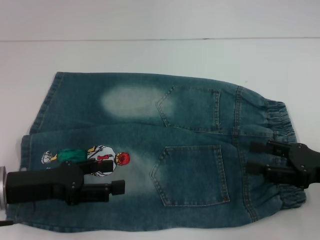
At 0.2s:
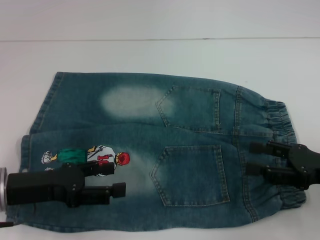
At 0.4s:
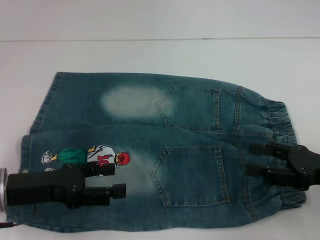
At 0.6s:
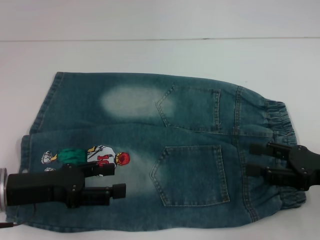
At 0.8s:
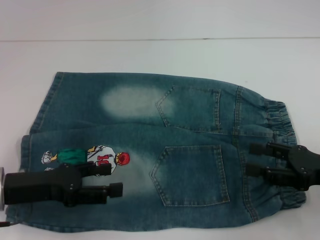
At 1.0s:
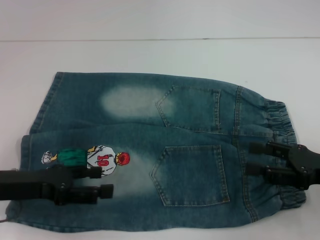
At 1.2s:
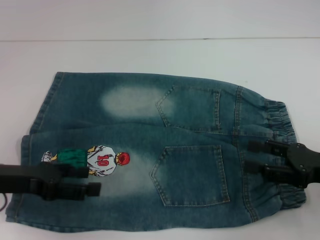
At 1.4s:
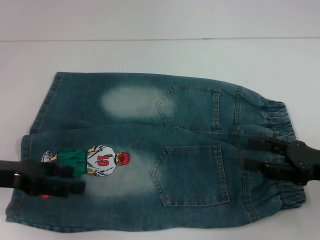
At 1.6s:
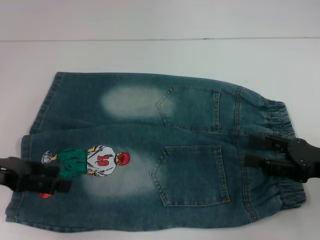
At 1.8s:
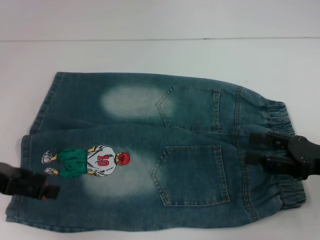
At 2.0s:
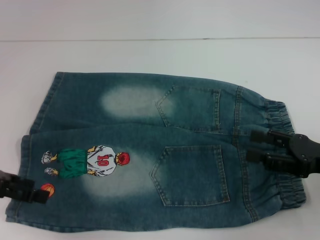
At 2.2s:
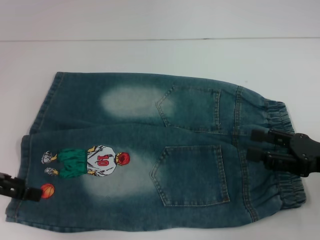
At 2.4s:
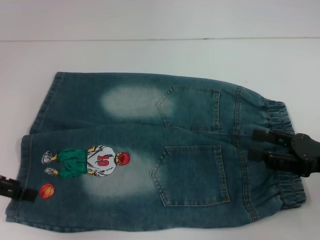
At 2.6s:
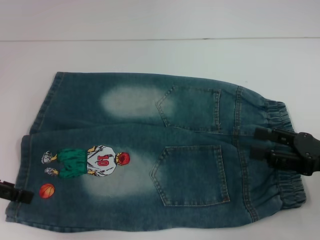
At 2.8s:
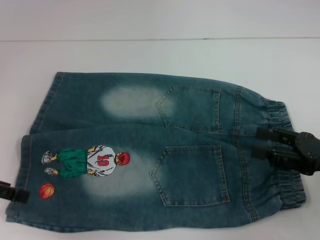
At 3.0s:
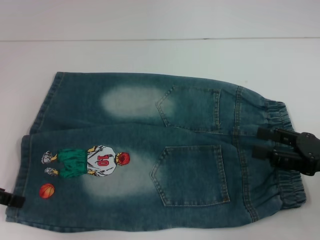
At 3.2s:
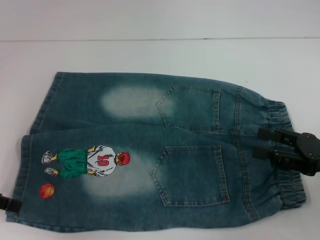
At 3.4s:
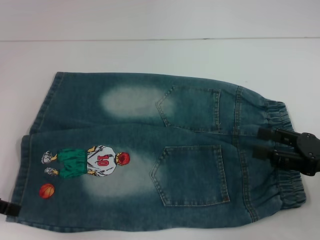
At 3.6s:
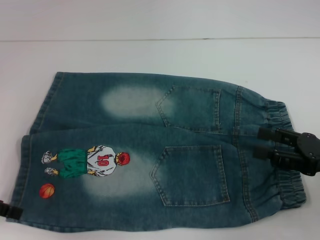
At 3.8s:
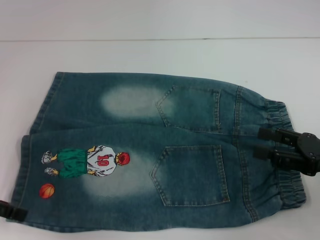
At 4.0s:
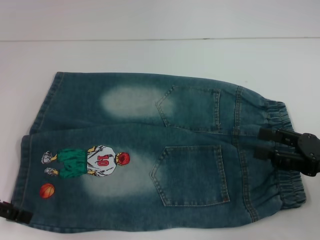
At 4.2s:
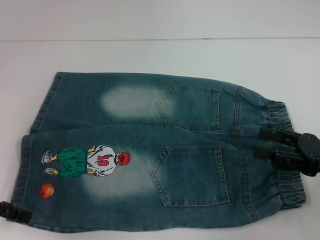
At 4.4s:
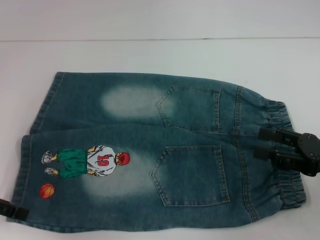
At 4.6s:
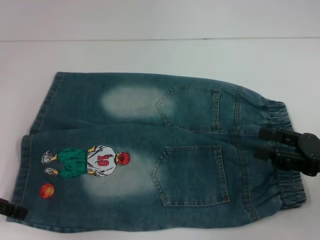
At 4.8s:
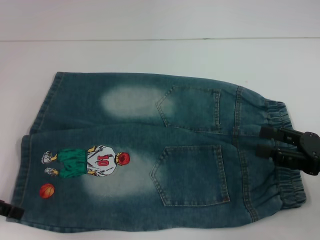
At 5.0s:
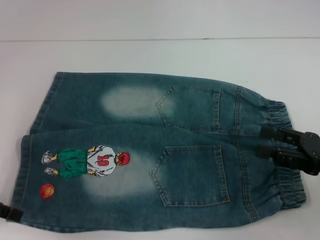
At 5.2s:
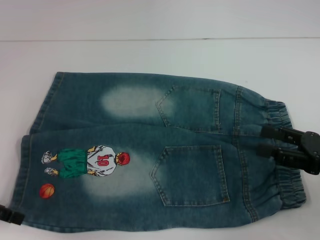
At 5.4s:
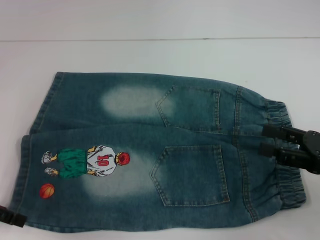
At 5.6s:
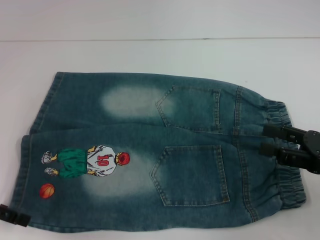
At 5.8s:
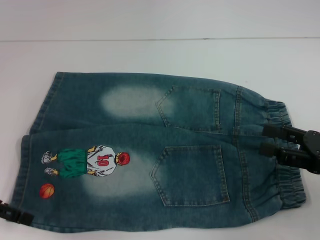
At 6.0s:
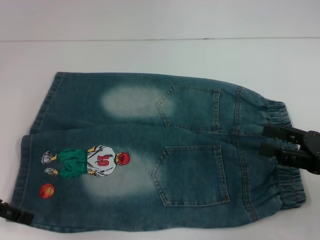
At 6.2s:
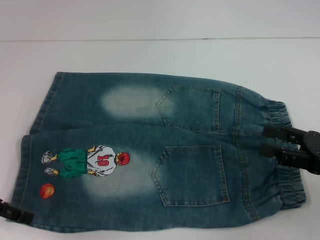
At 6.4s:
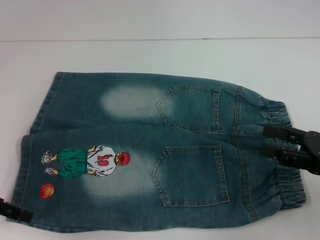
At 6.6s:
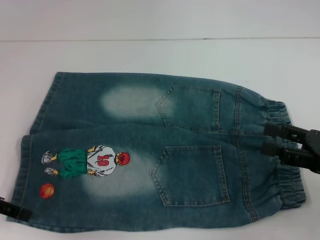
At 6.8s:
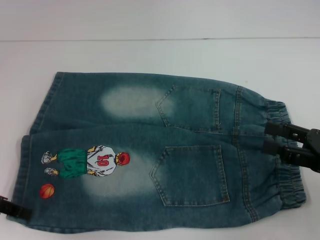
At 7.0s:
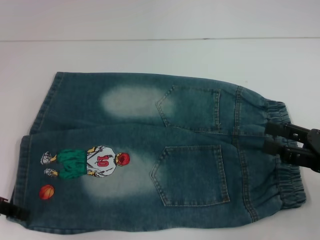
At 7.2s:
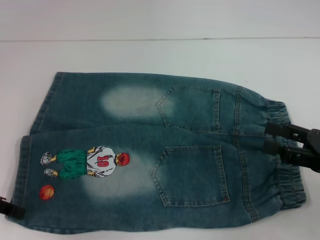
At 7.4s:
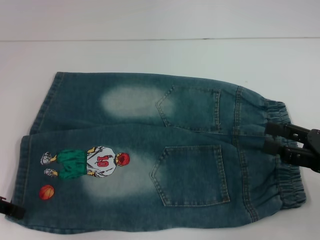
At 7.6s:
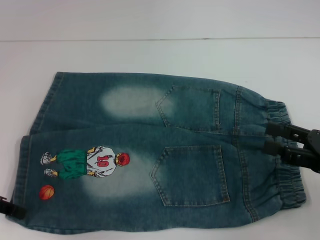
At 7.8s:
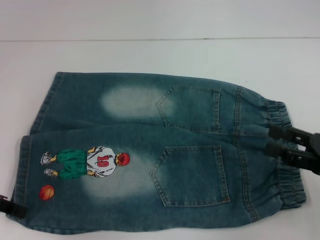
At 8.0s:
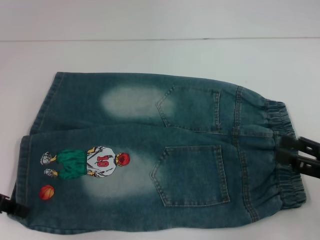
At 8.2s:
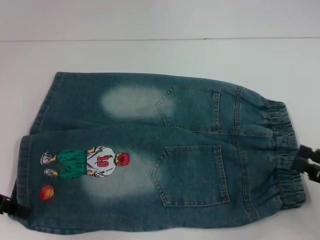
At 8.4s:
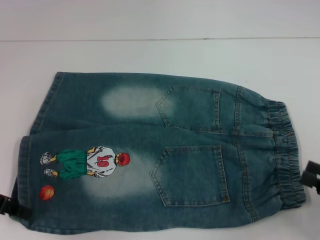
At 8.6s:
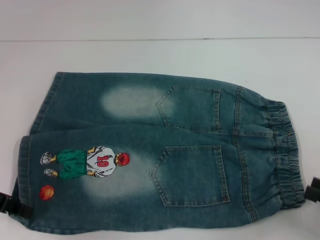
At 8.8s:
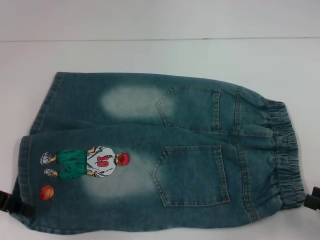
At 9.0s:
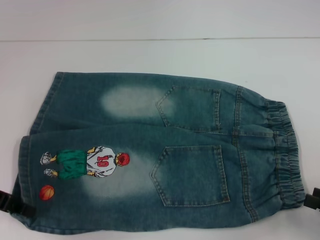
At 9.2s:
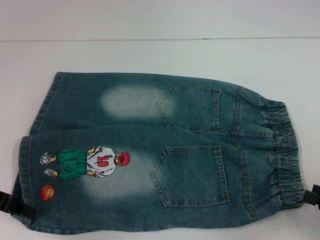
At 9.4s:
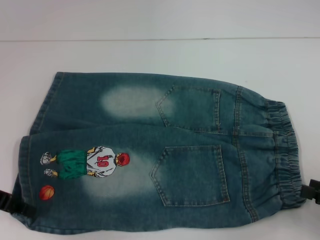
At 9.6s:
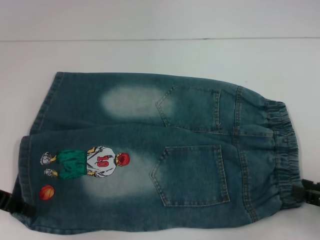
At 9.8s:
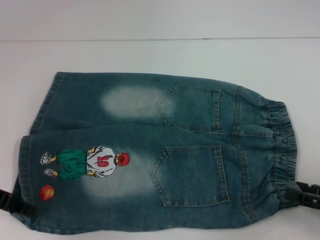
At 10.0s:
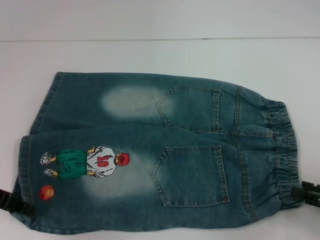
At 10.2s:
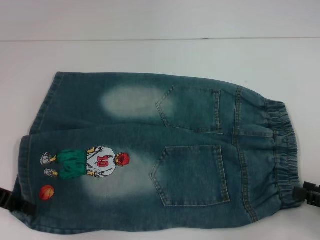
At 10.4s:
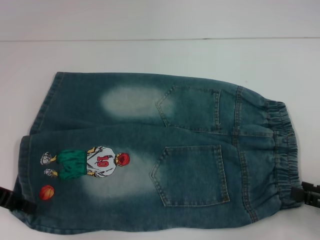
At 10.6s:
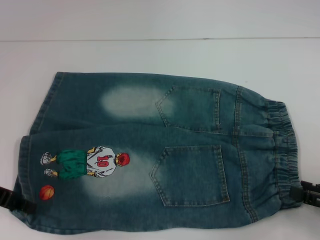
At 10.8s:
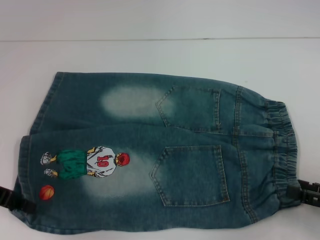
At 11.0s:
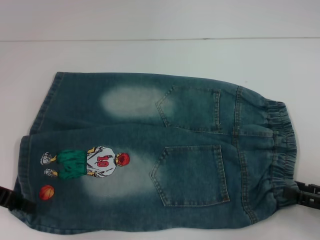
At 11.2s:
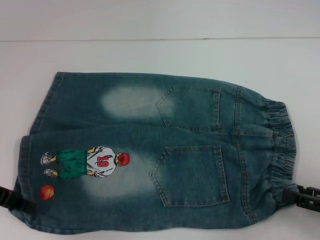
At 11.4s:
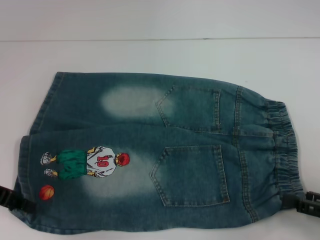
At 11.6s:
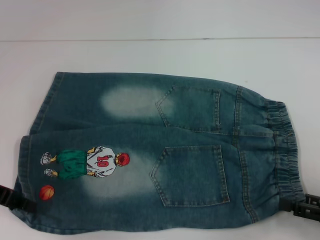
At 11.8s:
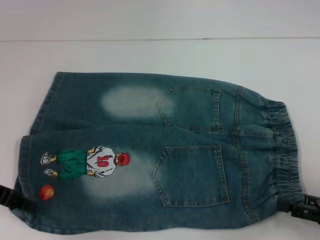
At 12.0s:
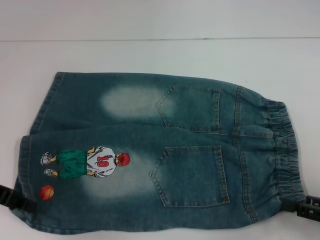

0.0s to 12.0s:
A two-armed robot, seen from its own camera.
Step, 0.0s to 8.4s: Hold the lower left waistband with your left hand.
0.0s to 1.6s: The left gripper goes about 5 cm to the left.
4.4s to 6.0s: Neither gripper changes place.
6.0s to 7.6s: The left gripper closes.
7.6s to 9.0s: The right gripper travels backward and to the right by about 10 cm.
9.0s to 12.0s: The grippers make only small movements.

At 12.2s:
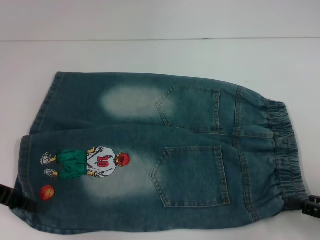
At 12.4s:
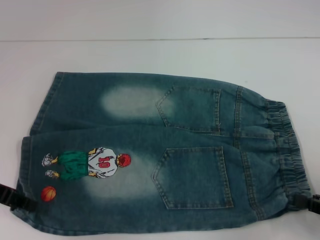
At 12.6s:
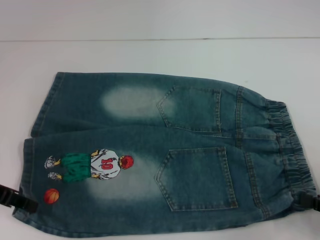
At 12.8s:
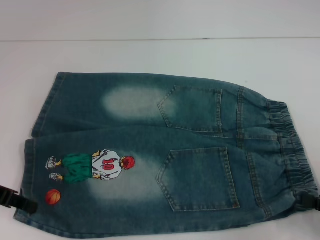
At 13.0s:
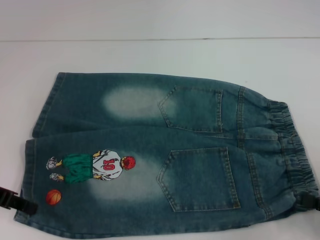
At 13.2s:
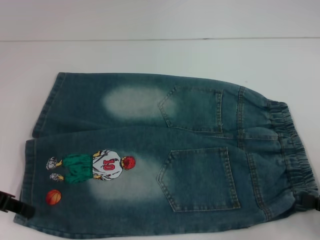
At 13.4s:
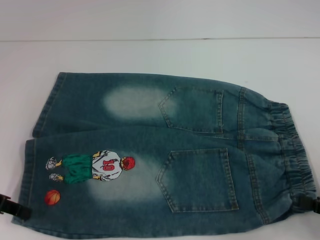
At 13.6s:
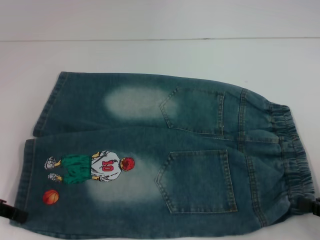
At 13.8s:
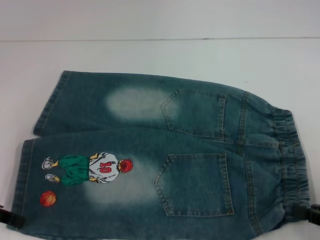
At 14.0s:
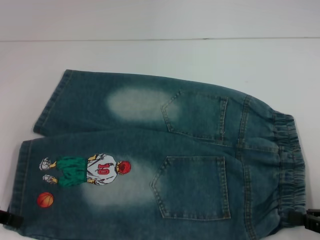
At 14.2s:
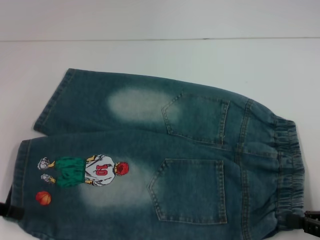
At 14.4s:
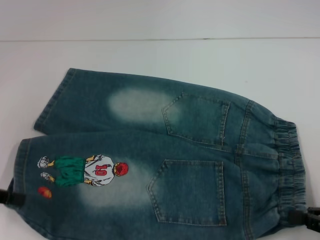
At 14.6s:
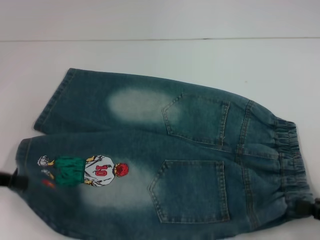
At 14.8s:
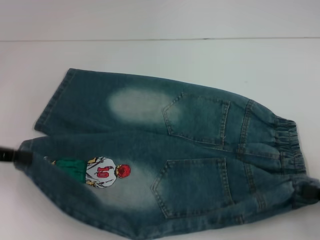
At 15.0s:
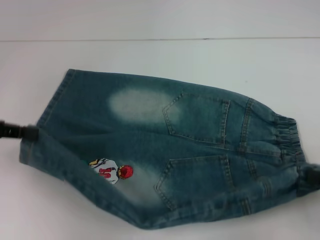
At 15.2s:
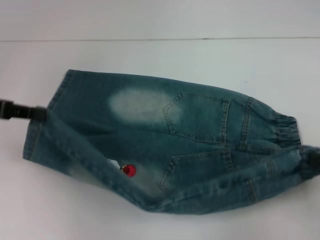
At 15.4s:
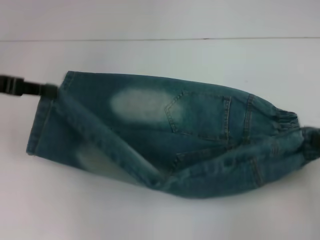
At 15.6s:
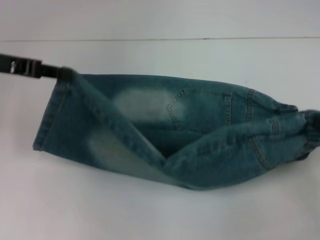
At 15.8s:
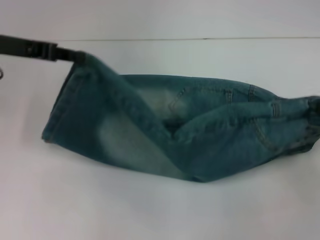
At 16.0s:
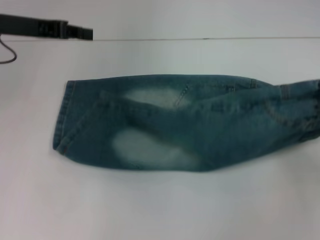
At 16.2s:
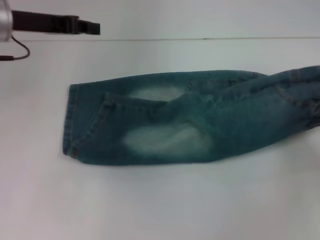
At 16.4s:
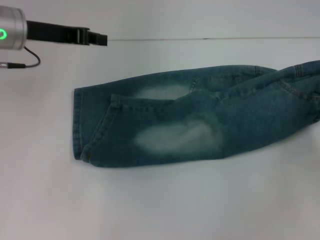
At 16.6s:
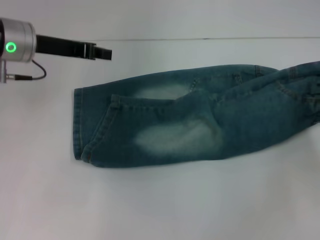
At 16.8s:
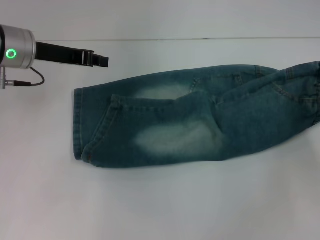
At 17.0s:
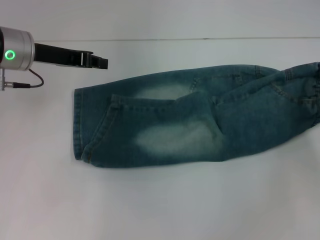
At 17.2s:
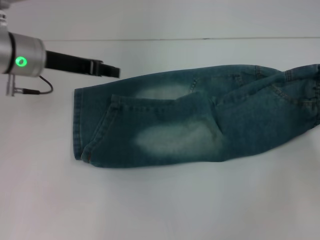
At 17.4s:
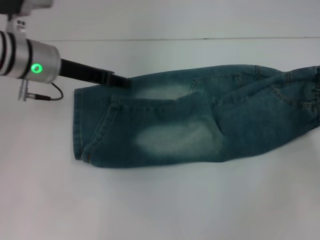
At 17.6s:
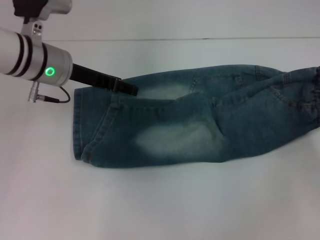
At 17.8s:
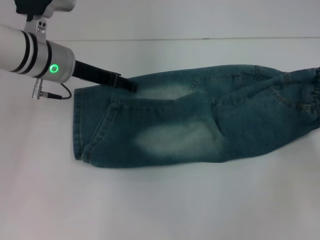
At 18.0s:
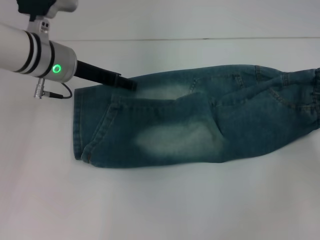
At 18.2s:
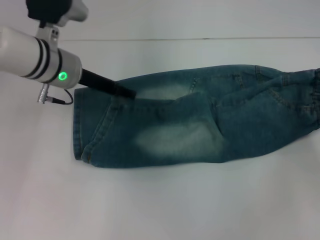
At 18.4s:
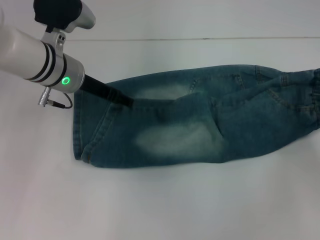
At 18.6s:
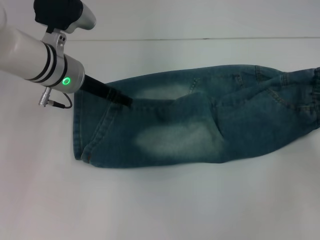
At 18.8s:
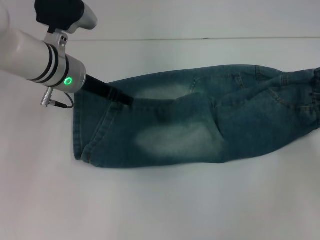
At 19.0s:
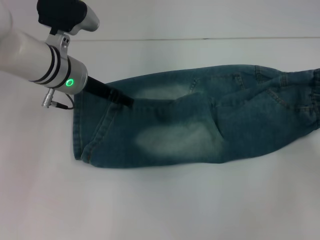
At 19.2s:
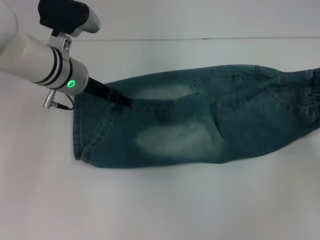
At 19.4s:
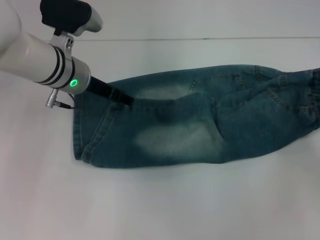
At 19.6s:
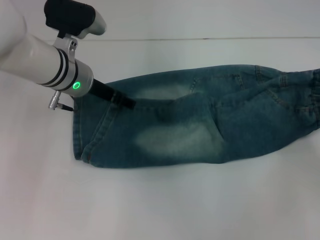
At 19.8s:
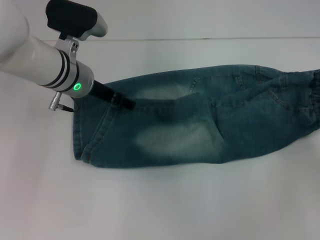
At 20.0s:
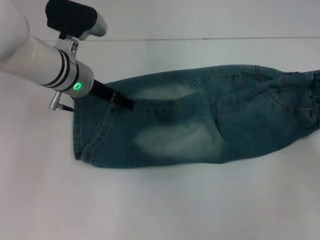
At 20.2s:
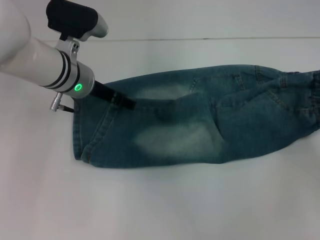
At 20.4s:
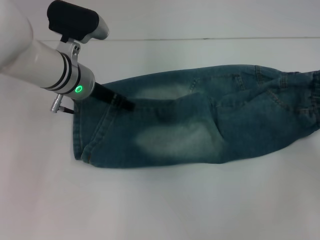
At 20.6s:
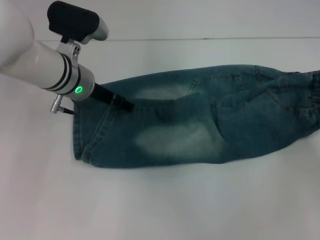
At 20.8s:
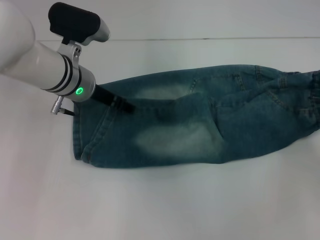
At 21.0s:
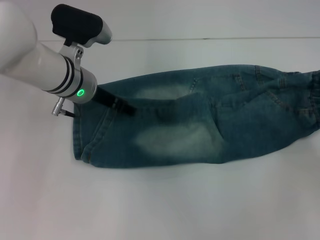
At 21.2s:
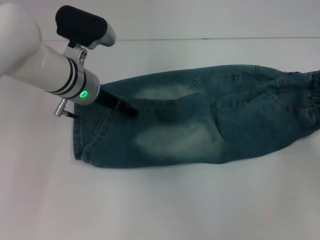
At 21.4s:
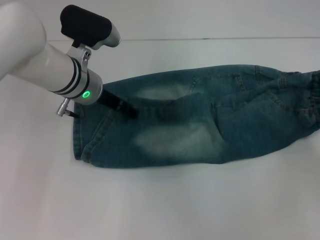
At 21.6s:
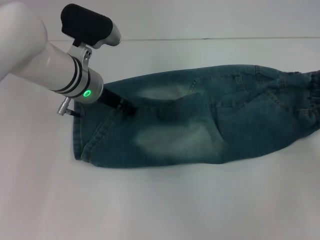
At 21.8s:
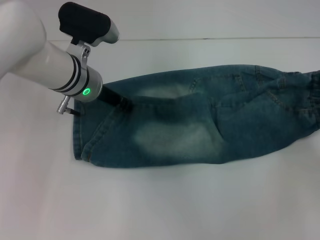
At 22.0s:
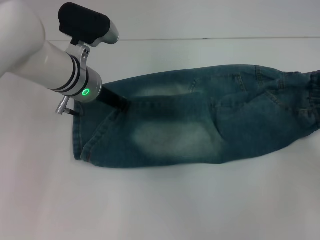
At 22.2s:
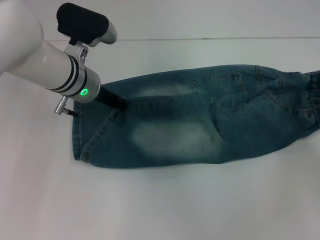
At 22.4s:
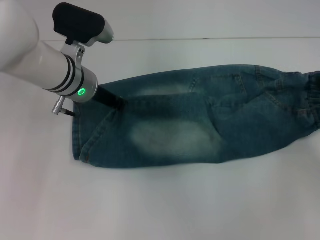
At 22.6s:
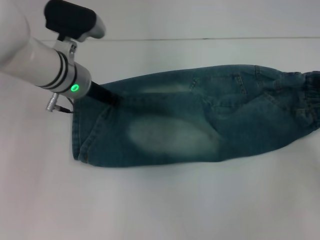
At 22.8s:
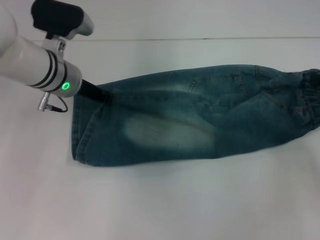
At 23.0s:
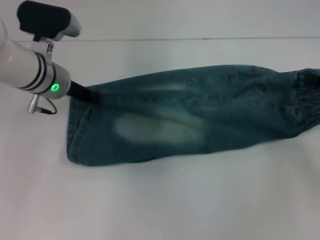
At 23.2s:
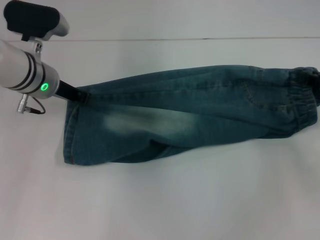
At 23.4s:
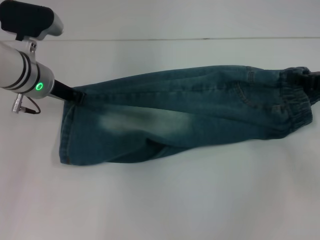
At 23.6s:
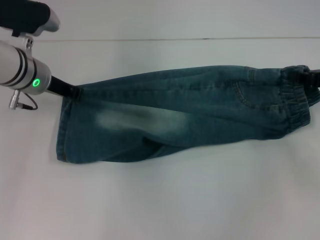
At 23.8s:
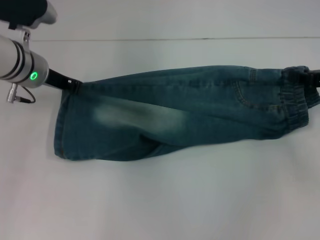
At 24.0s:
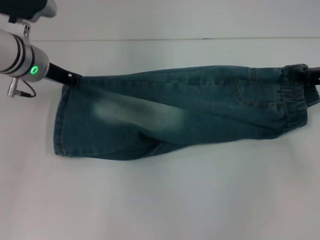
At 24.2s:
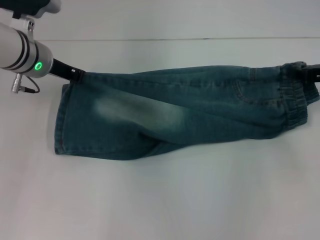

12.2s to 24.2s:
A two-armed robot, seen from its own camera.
12.2s to 13.8s: The right gripper closes.
13.8s to 15.2s: The left gripper goes some 10 cm upward and forward; the right gripper travels upward by approximately 5 cm.
15.2s to 16.6s: The left gripper heads to the right and forward, covering approximately 15 cm. The right gripper is displaced forward by roughly 10 cm.
16.6s to 18.2s: The left gripper shifts approximately 5 cm to the right, and opens.
18.2s to 19.8s: The grippers make only small movements.
19.8s to 21.2s: Neither gripper changes place.
21.2s to 22.6s: The left gripper closes its fingers.
22.6s to 24.2s: The left gripper goes approximately 5 cm to the left, while the right gripper shifts by about 5 cm.
